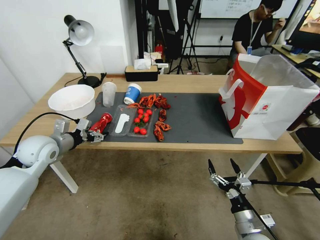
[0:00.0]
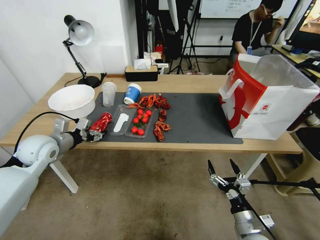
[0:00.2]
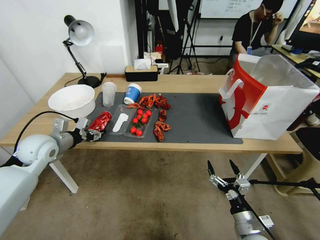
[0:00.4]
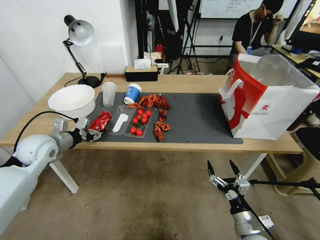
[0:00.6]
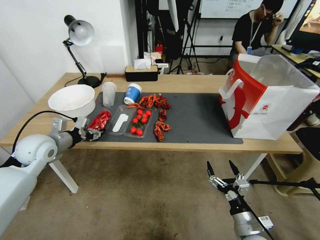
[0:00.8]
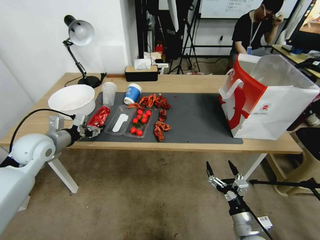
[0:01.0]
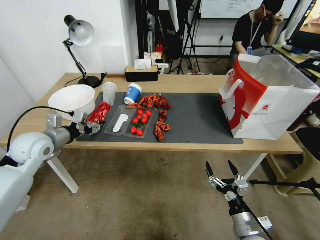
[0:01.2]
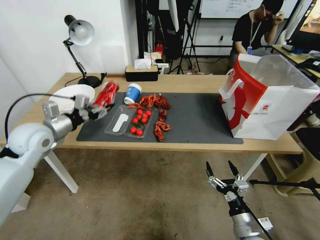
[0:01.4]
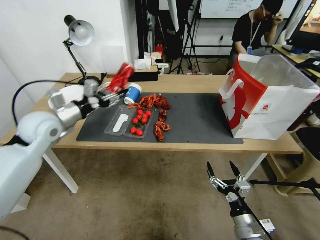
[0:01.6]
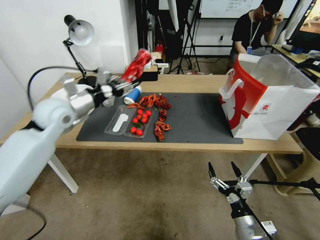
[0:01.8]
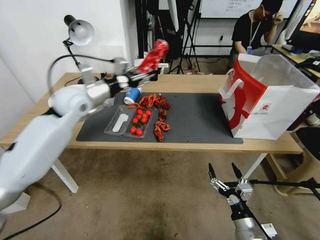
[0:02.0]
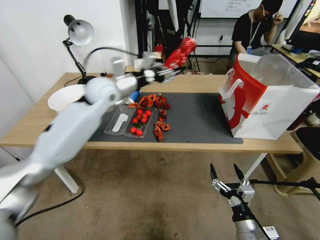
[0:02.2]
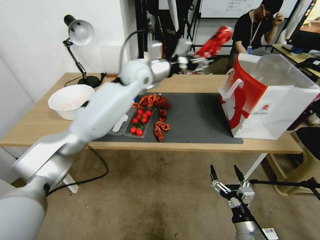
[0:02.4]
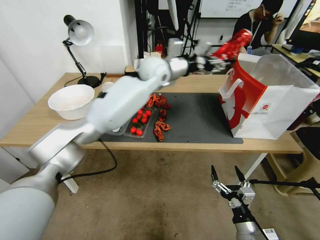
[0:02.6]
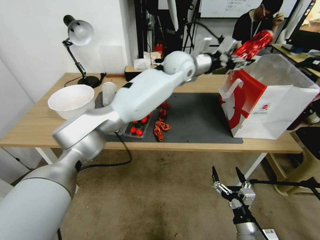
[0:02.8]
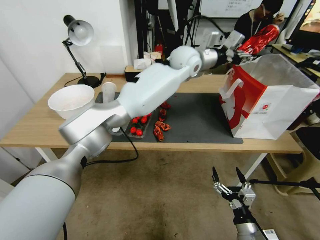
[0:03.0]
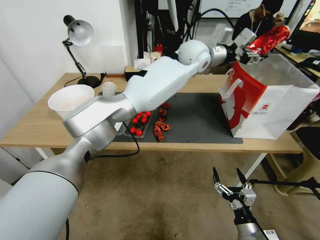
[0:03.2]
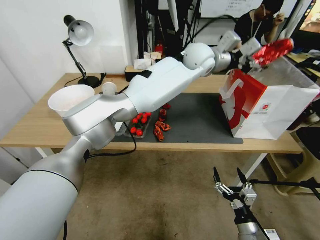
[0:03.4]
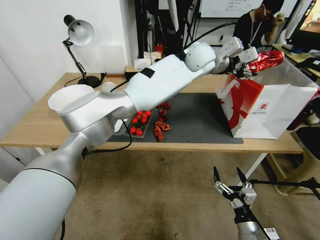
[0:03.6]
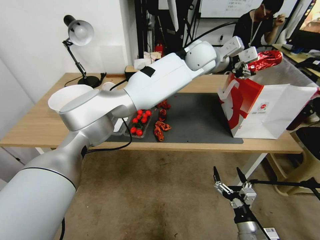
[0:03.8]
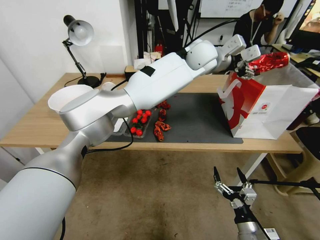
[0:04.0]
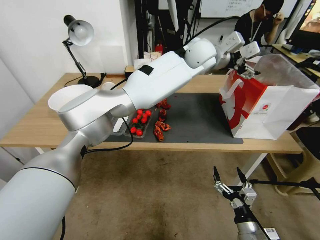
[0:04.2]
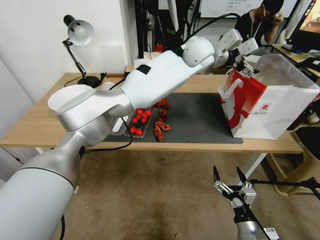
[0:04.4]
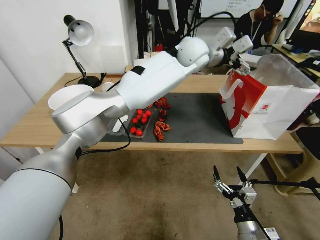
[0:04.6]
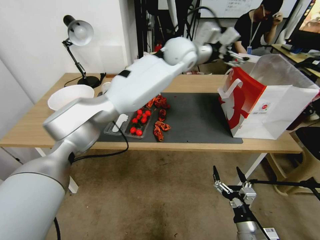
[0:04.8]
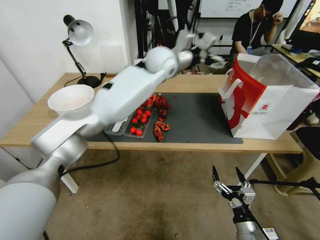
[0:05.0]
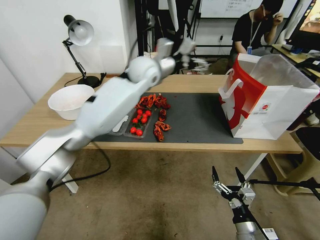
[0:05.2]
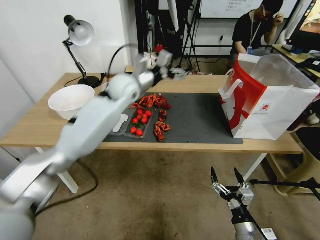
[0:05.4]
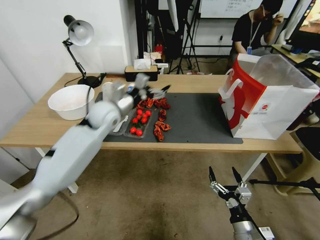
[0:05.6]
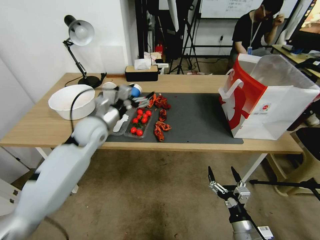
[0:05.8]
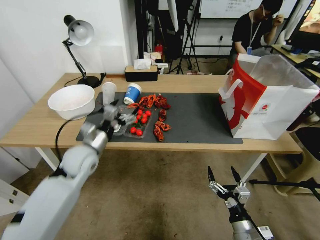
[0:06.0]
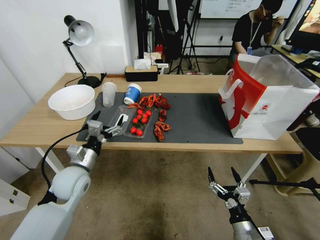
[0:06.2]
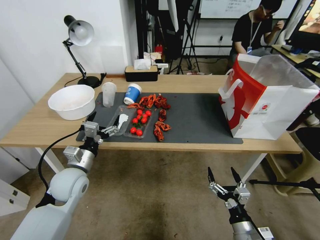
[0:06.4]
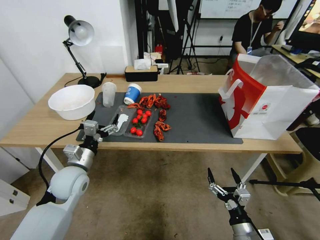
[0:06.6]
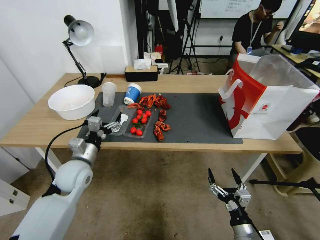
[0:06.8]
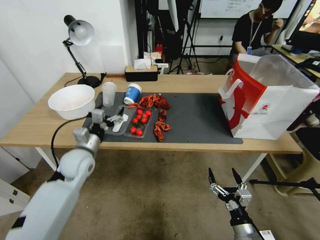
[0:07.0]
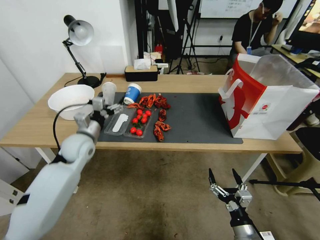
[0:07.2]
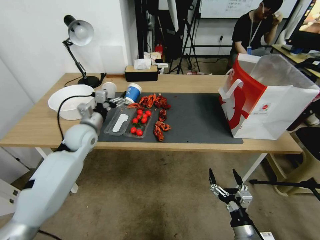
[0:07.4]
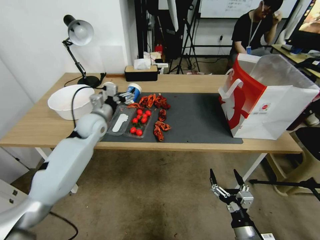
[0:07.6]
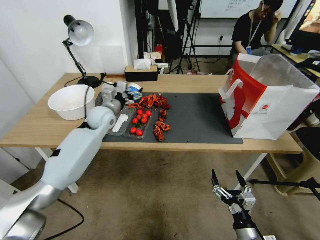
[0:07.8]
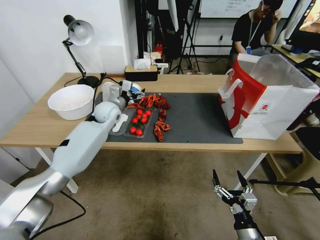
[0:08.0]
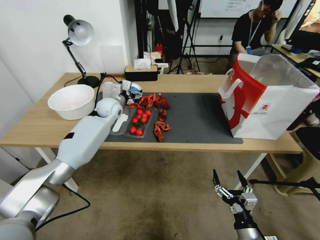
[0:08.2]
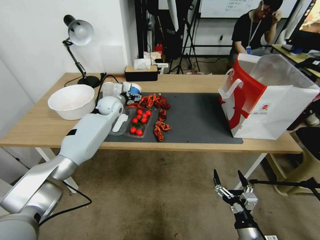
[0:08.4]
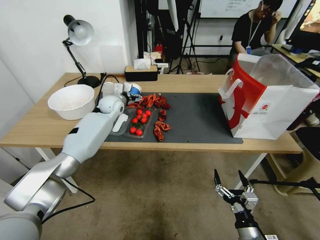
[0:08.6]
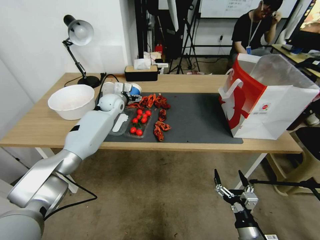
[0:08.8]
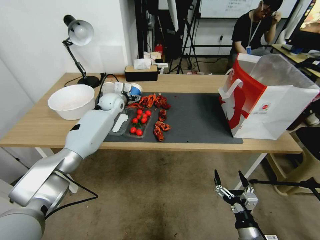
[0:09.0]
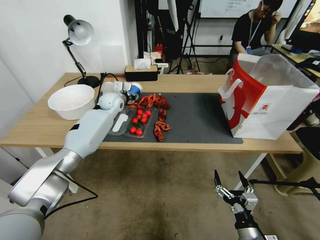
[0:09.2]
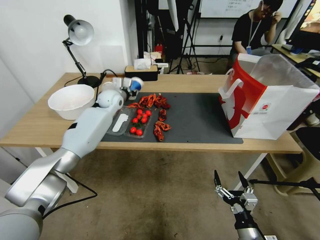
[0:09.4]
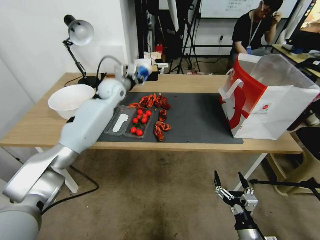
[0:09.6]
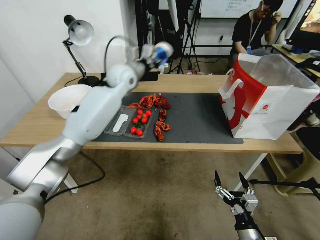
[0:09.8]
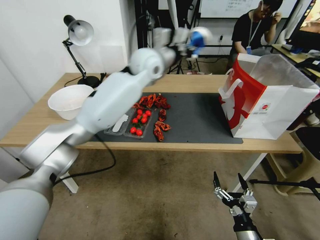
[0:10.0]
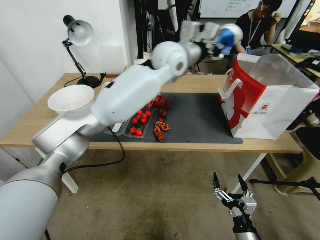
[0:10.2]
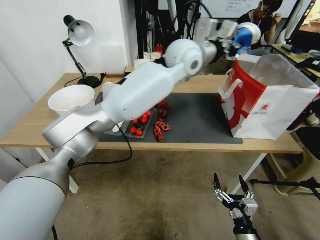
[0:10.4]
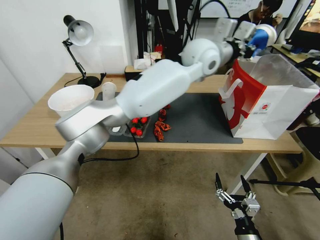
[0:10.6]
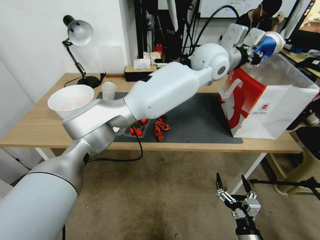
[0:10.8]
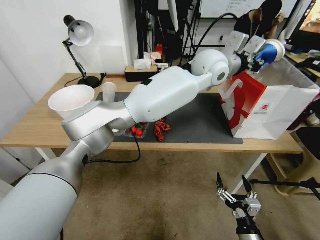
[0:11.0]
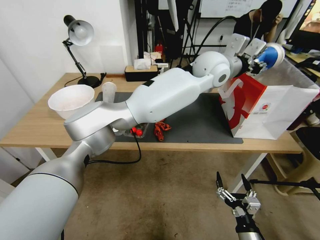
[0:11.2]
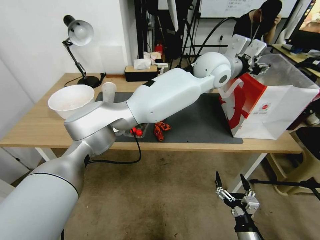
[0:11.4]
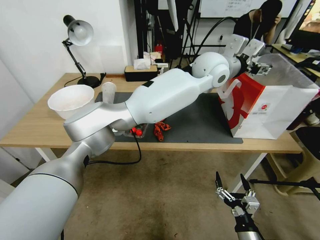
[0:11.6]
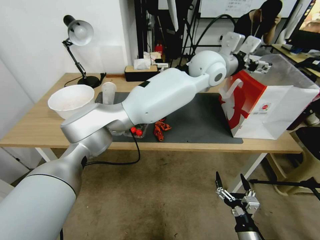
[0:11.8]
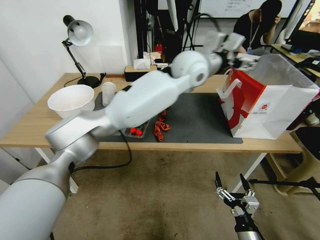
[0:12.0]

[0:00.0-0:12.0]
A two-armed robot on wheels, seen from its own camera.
0:00.0 to 0:01.6: The left gripper shifts roughly 10 cm upward, and closes up.
0:01.6 to 0:03.0: The left gripper goes roughly 50 cm to the right and forward.
0:03.0 to 0:04.4: The left gripper opens up.
0:04.4 to 0:06.0: The left gripper shifts some 50 cm to the left, downward and backward.
0:07.6 to 0:09.0: The left gripper heads forward, covering approximately 20 cm.
0:09.0 to 0:10.4: The left gripper moves to the right and upward, approximately 35 cm, and closes up.
0:10.4 to 0:12.0: The left gripper reaches roughly 10 cm to the right, then returns, and opens.

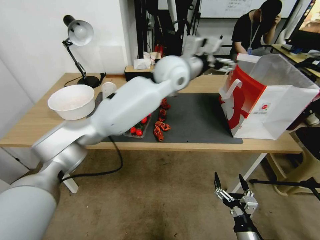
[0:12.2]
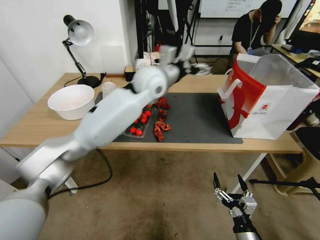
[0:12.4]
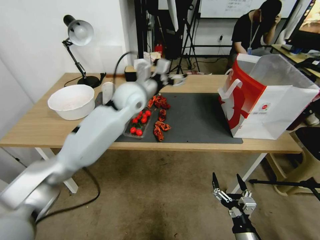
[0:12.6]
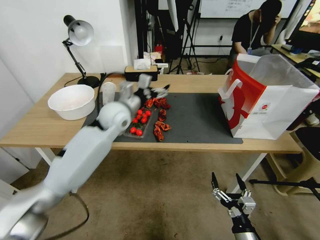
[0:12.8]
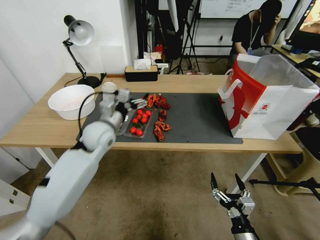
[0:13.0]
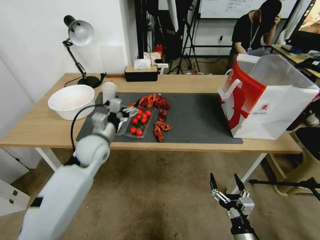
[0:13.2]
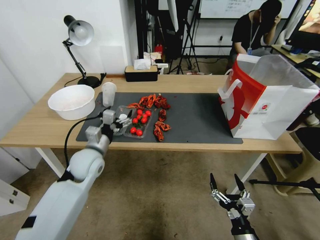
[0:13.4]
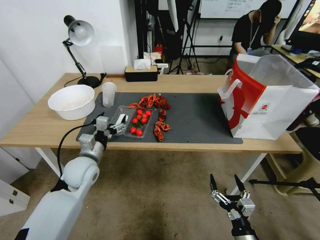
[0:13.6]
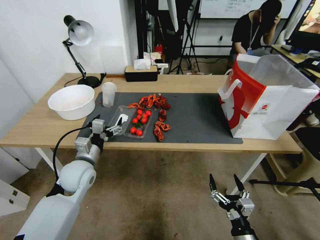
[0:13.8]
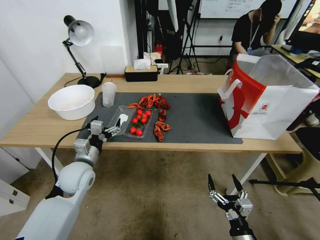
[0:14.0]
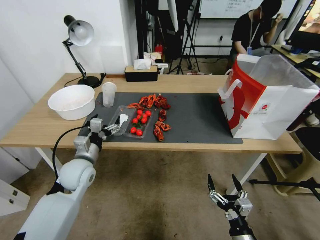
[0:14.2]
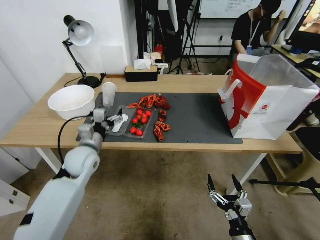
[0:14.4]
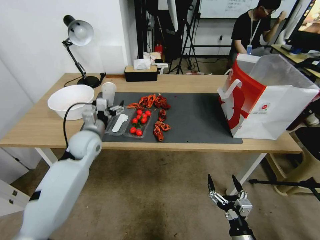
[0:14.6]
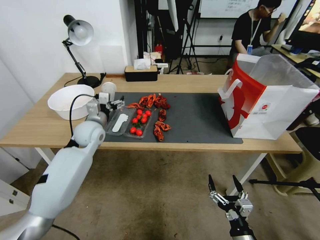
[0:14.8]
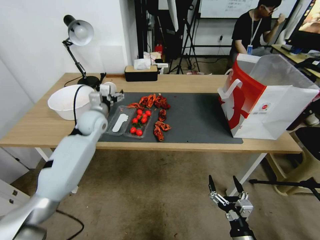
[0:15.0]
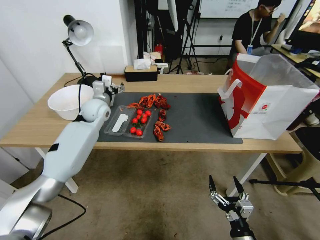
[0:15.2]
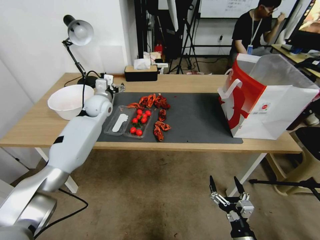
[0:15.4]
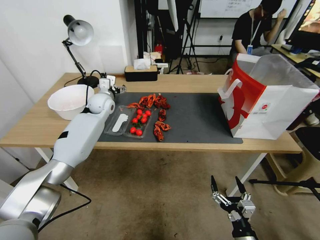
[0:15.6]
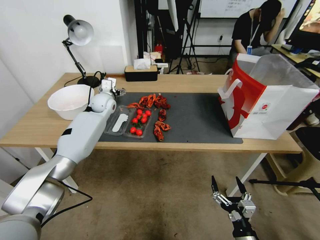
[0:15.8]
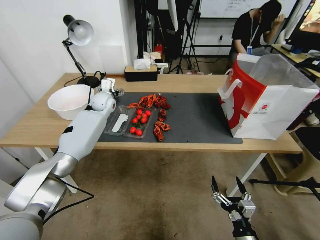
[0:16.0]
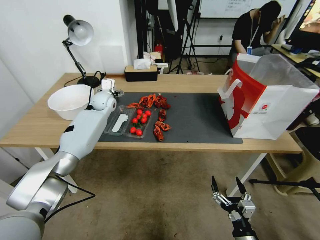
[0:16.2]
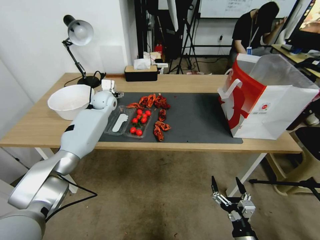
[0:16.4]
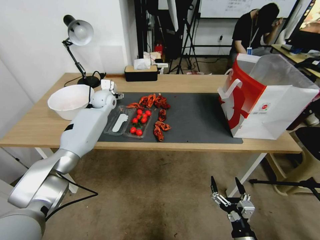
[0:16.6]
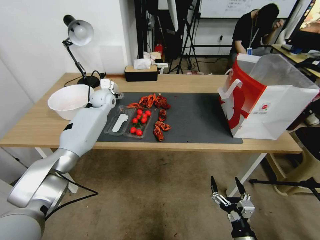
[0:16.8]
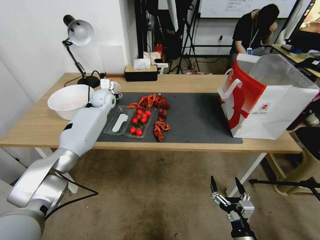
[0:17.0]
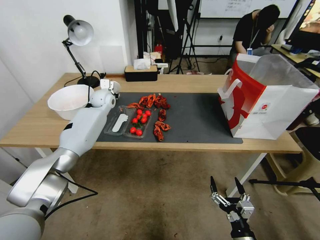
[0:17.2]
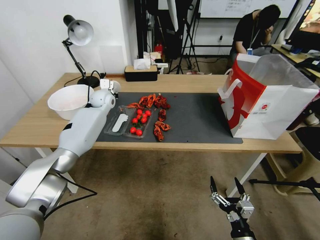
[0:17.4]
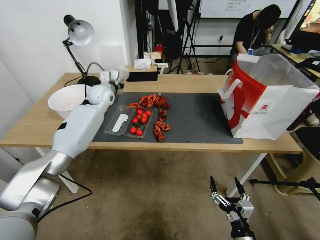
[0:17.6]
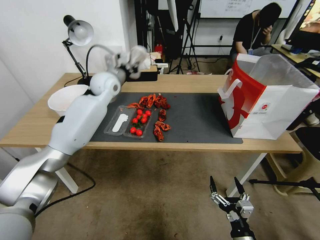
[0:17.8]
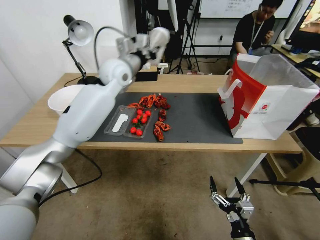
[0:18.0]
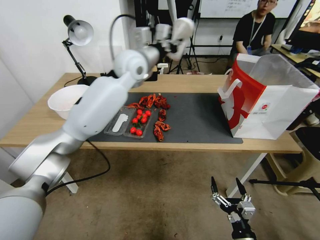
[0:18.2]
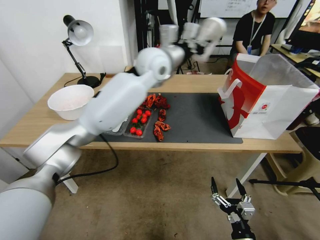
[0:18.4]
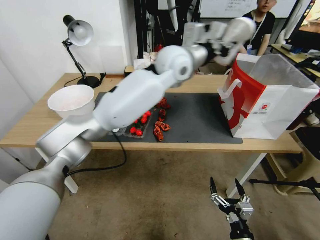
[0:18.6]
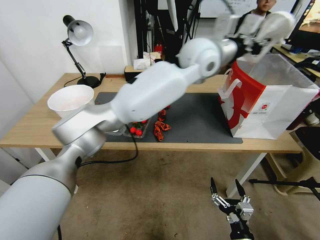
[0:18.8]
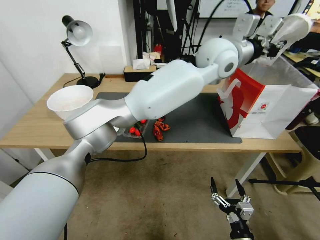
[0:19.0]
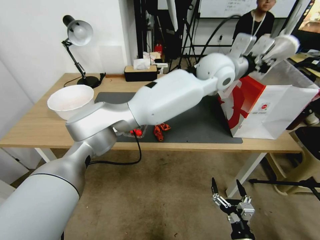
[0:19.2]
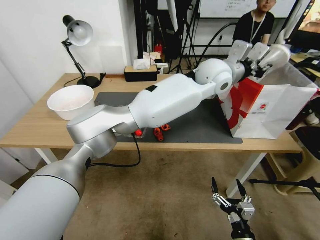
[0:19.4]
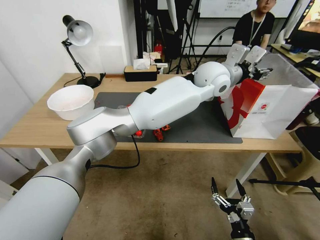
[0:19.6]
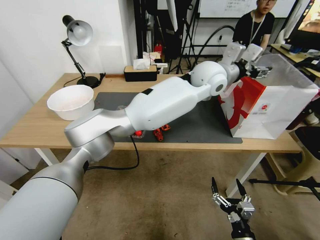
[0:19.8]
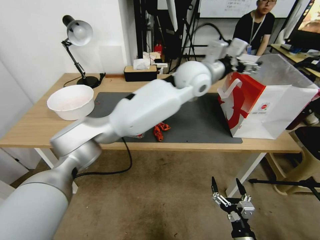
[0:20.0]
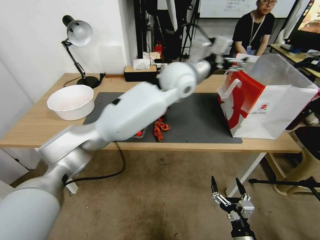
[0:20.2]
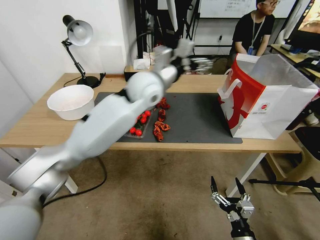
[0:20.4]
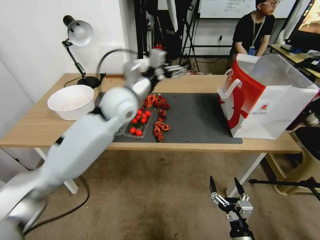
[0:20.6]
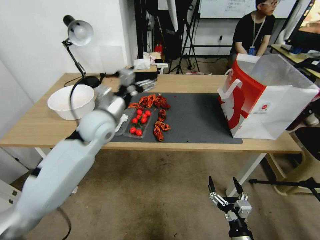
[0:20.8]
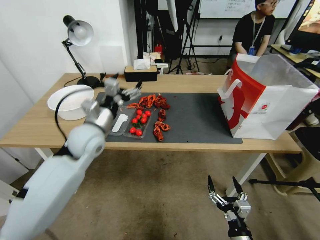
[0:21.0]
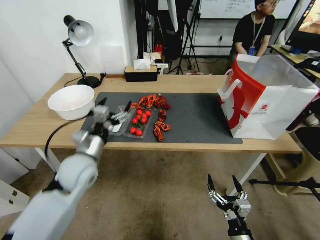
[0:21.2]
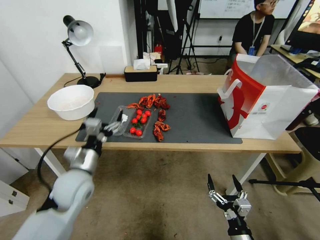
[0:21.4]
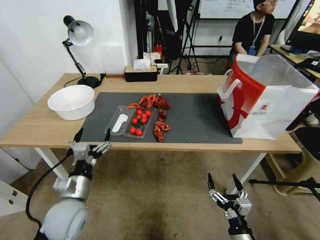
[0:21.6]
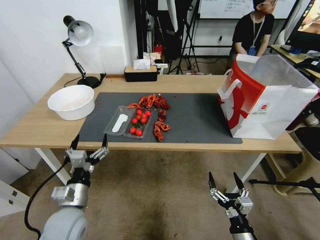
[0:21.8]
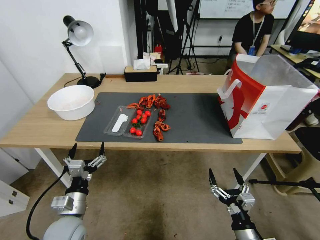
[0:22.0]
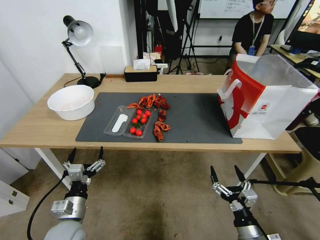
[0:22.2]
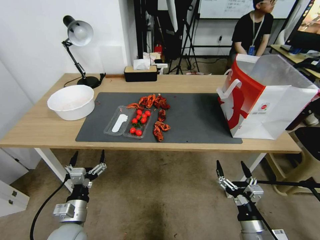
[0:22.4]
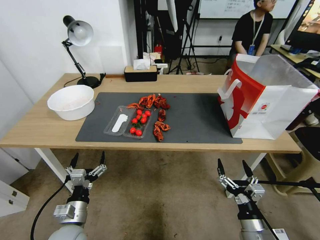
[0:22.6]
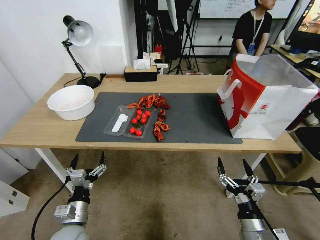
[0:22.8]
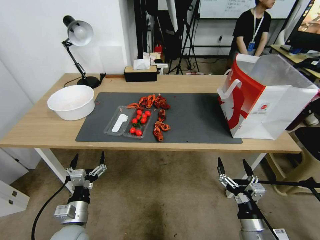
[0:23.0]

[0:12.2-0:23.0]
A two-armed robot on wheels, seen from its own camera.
0:12.2 to 0:13.8: The left gripper shifts approximately 40 cm to the left, downward and backward.
0:13.8 to 0:15.2: The left gripper moves forward and upward, approximately 20 cm.
0:15.2 to 0:16.8: The left gripper is displaced forward by some 10 cm.
0:16.8 to 0:18.4: The left gripper moves to the right, upward and backward, some 30 cm, and closes.
0:18.4 to 0:20.0: The left gripper heads to the right, covering approximately 10 cm, and opens up.
0:20.0 to 0:21.4: The left gripper goes roughly 50 cm to the left, downward and backward.
0:21.4 to 0:23.0: The left gripper travels downward and backward by some 15 cm. The right gripper changes place by some 5 cm.
